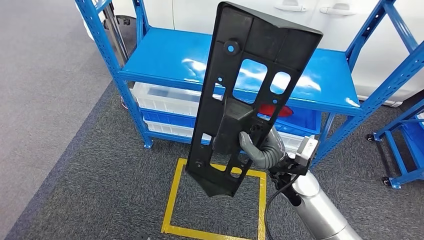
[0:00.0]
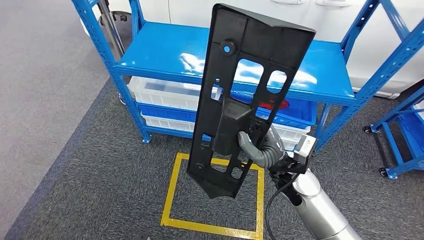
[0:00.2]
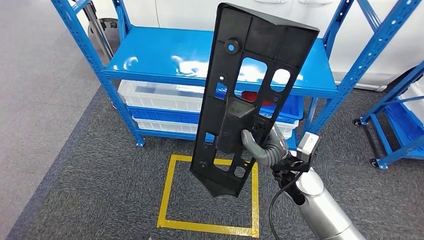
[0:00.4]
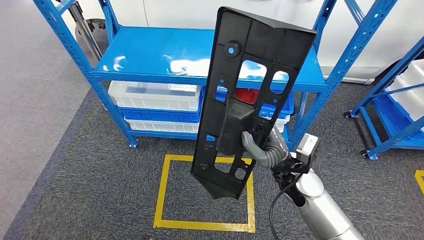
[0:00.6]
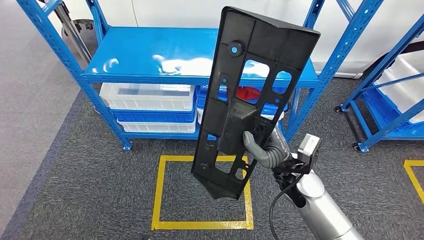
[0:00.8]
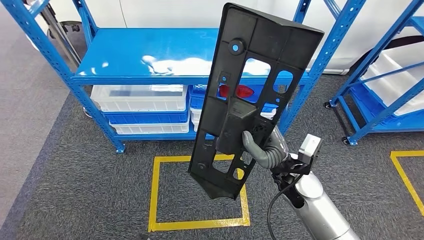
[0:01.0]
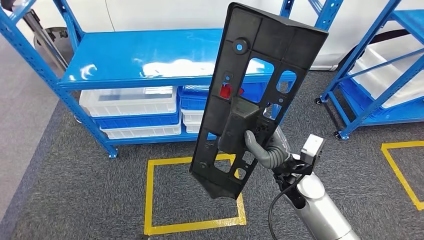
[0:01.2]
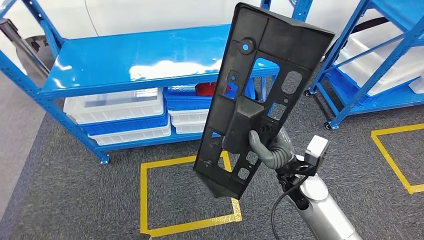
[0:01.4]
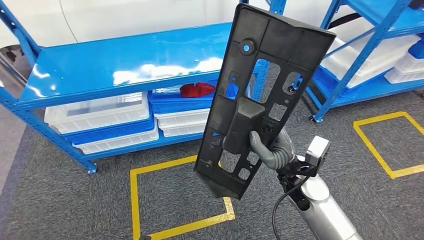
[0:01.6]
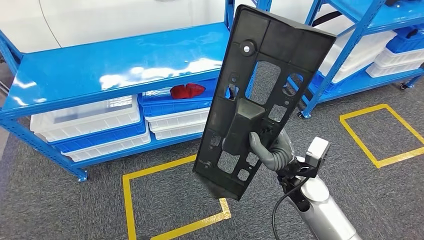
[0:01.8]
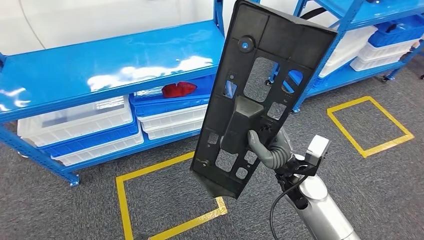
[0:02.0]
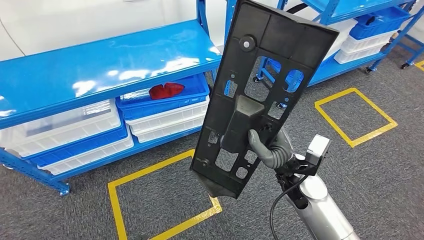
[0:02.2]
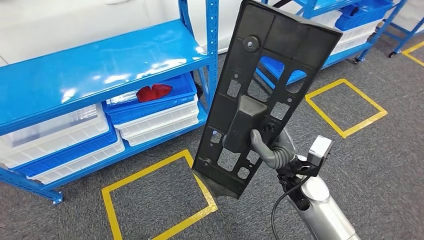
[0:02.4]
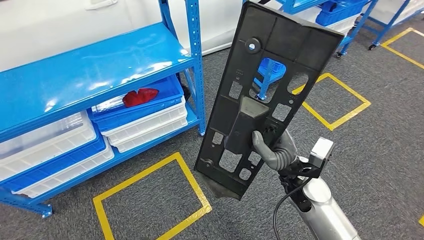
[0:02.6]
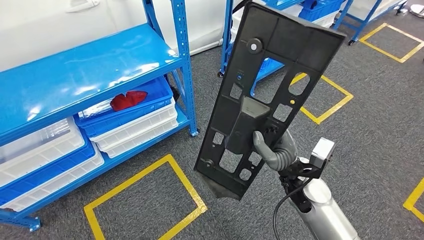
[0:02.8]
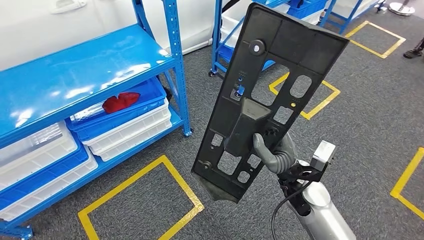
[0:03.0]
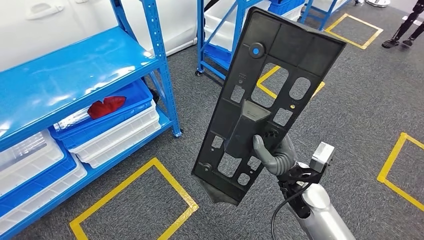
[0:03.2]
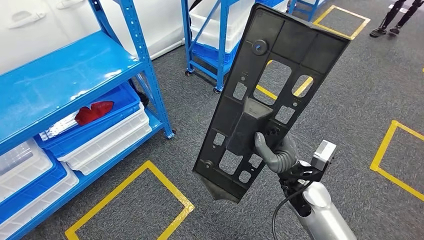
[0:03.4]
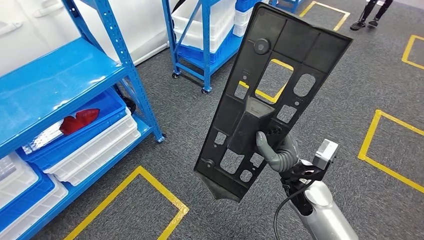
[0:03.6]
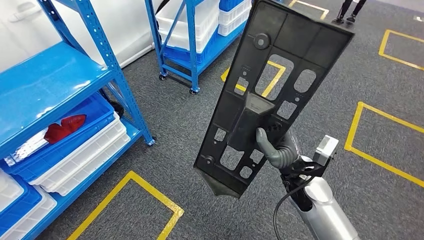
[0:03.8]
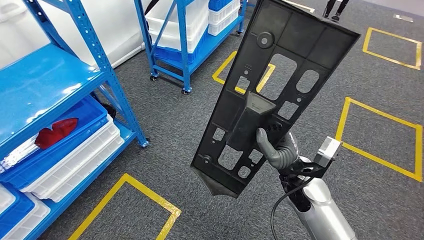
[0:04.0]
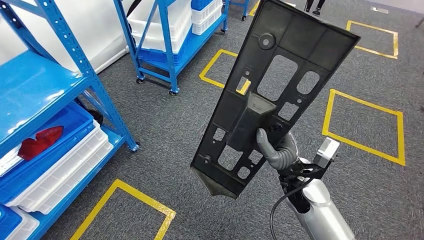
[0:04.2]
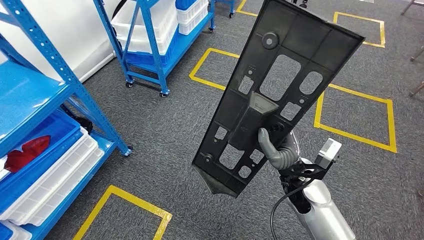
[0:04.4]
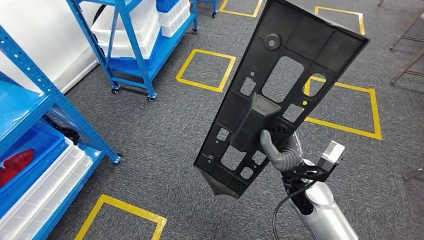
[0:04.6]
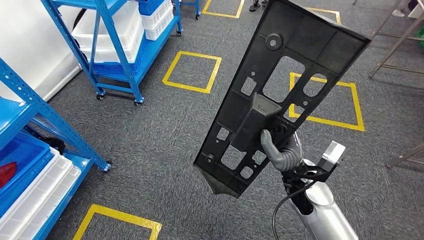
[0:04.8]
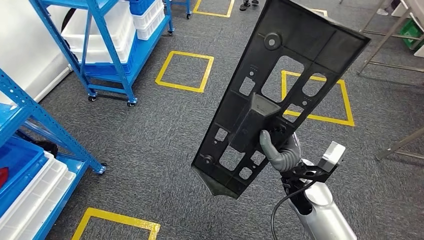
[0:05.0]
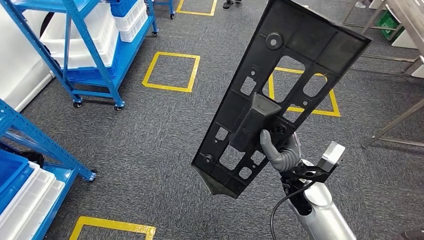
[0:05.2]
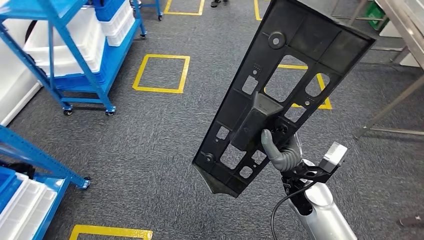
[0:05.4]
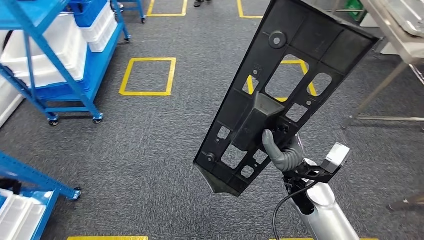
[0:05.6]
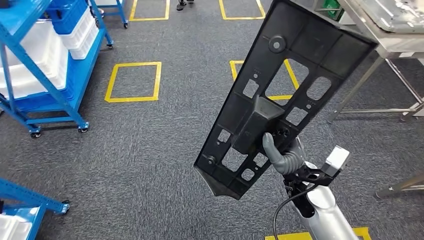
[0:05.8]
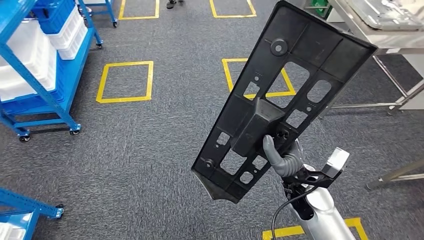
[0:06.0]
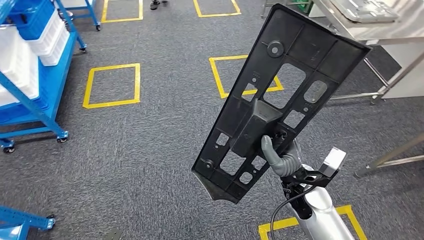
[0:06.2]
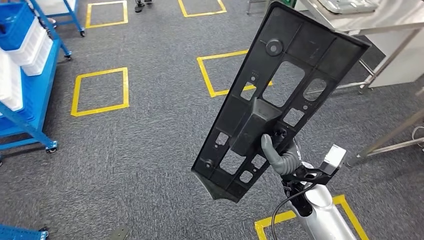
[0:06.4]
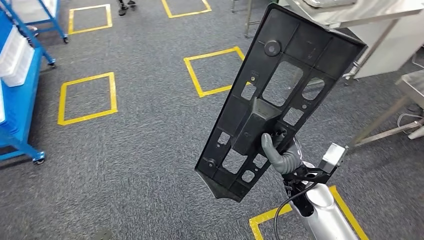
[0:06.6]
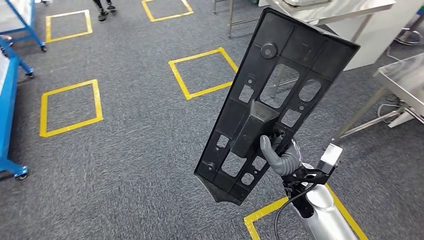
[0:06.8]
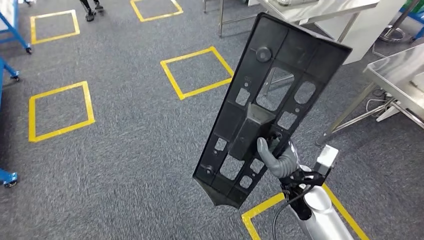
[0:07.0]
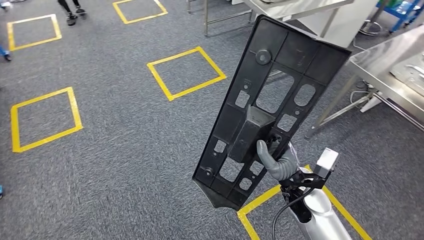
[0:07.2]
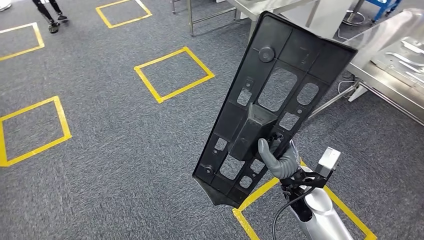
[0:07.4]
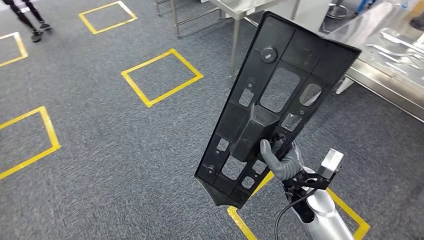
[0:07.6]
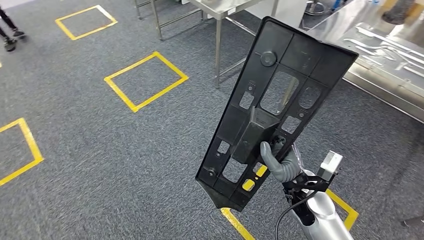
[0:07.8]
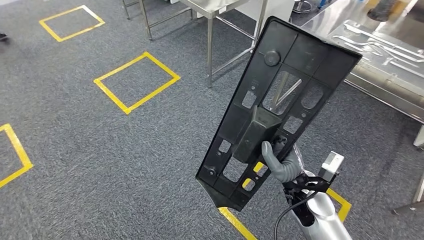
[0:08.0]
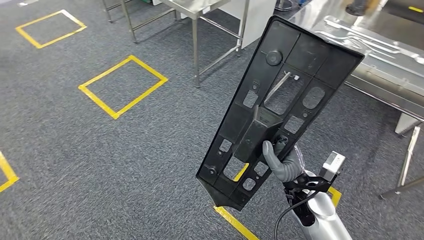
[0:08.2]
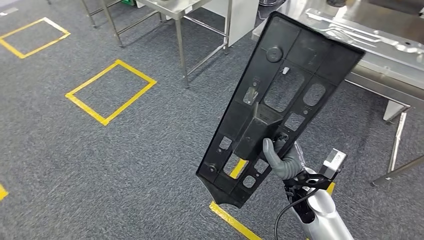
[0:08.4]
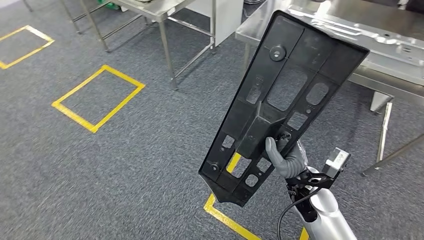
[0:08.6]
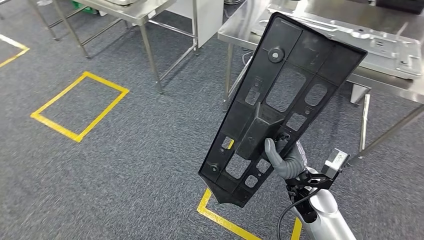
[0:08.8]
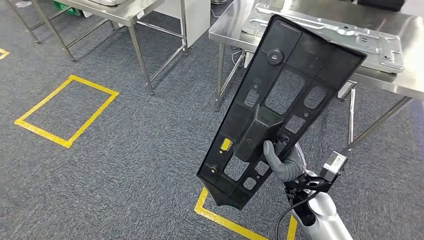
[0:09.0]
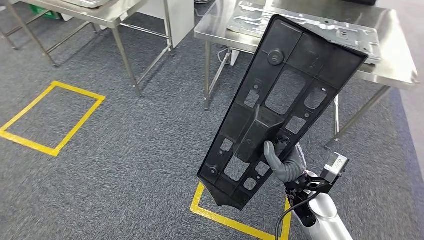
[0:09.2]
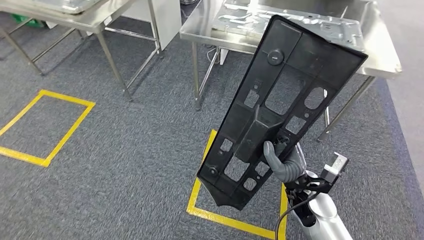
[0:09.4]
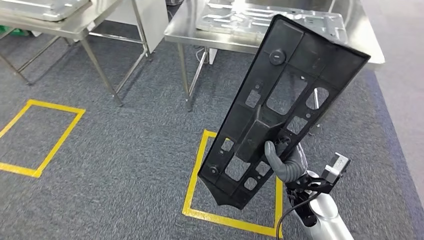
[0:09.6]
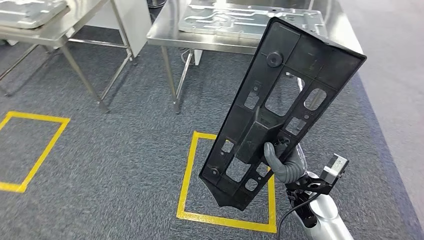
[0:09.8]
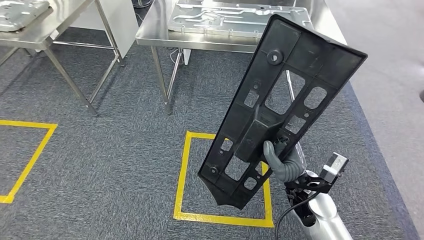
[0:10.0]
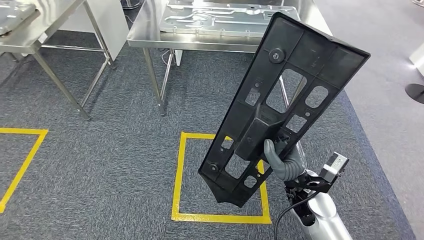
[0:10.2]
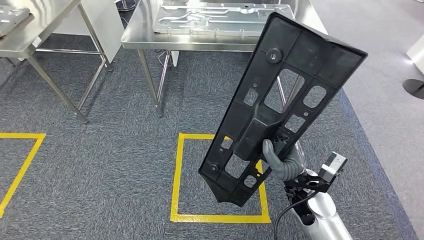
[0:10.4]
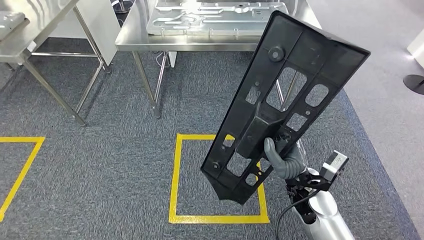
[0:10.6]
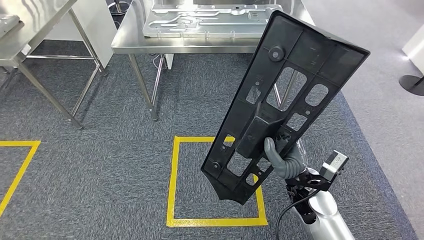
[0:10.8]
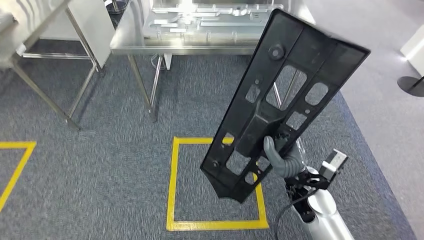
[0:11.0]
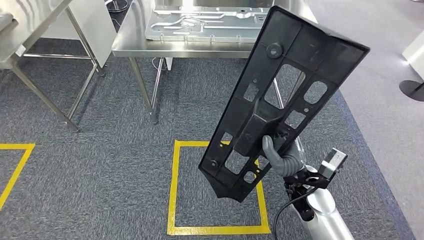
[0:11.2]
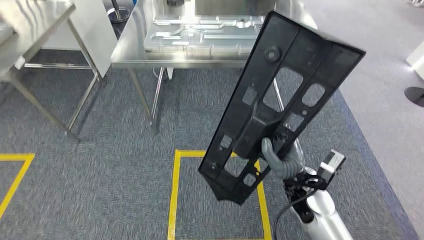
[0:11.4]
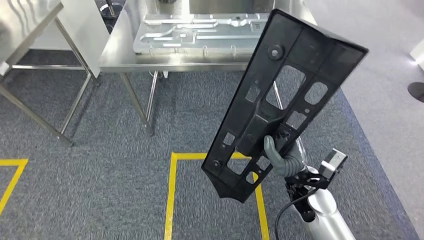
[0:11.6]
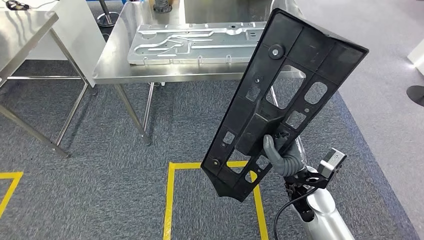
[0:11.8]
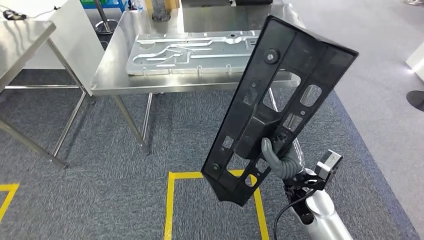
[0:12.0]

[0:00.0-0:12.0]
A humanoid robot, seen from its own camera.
Step, 0:01.0 to 0:11.8: Move the large material to the workbench.

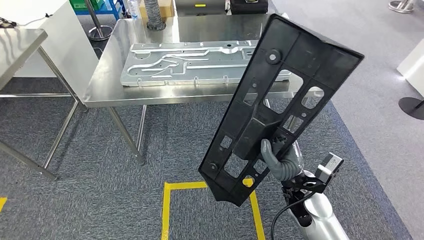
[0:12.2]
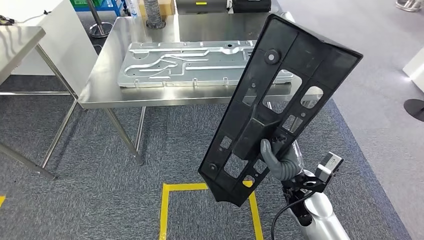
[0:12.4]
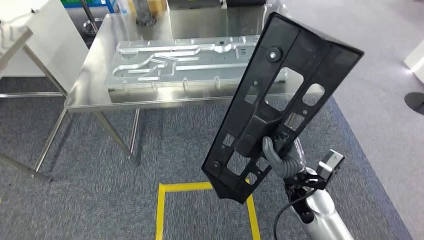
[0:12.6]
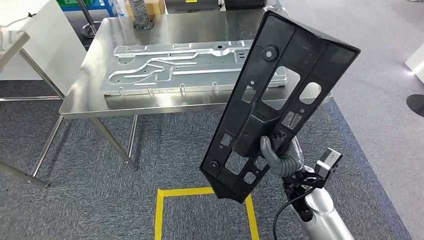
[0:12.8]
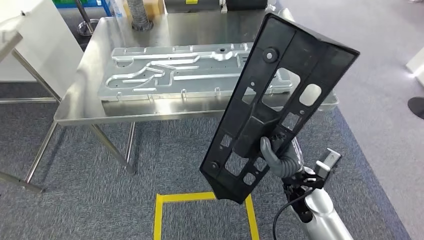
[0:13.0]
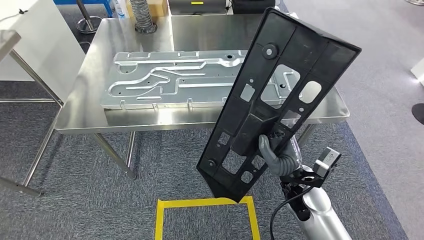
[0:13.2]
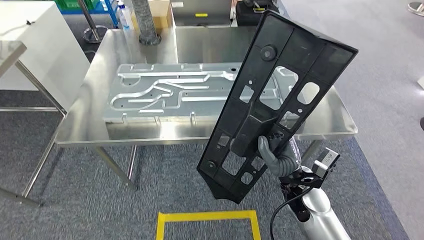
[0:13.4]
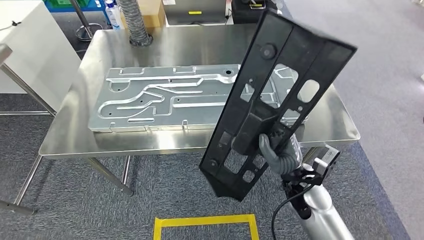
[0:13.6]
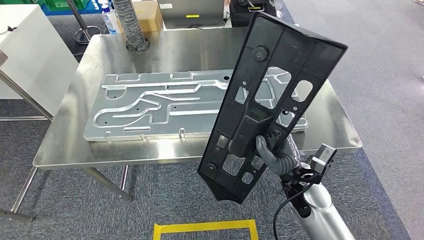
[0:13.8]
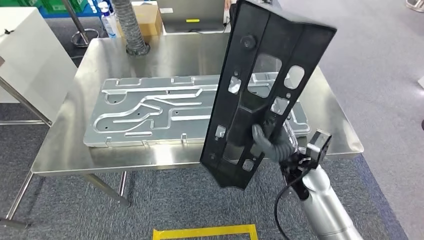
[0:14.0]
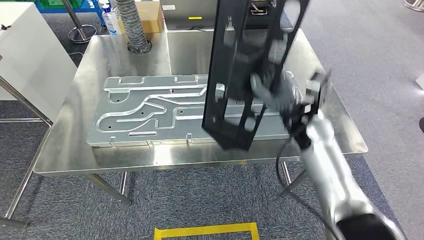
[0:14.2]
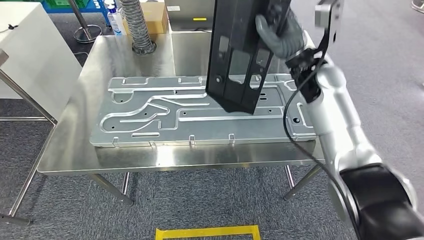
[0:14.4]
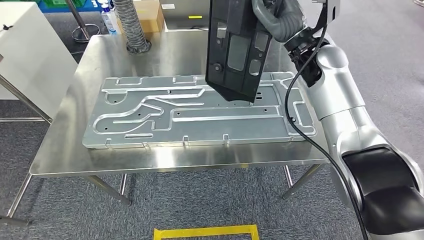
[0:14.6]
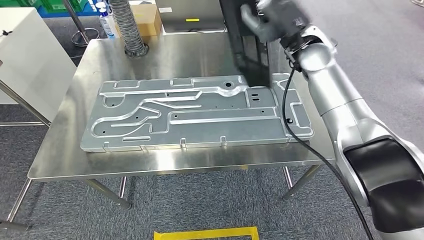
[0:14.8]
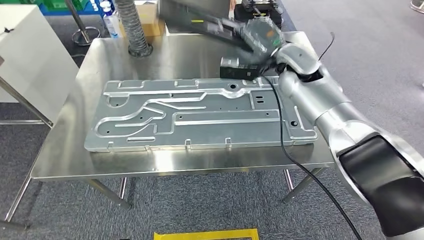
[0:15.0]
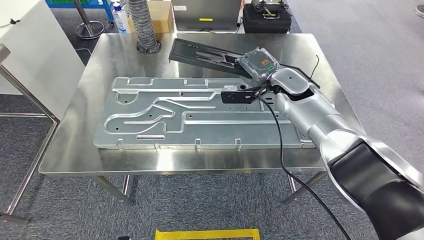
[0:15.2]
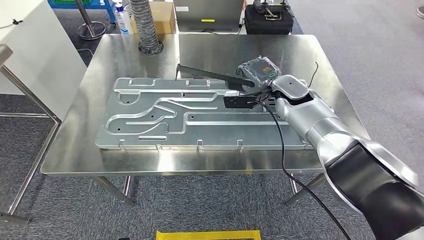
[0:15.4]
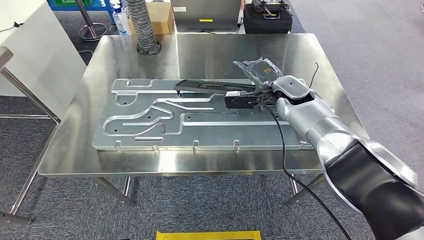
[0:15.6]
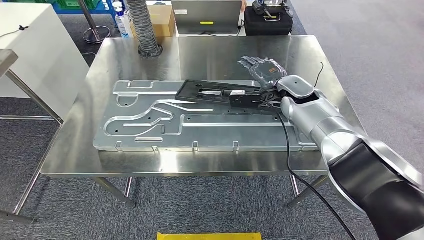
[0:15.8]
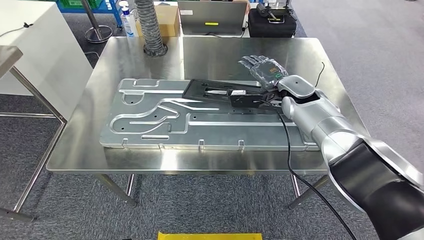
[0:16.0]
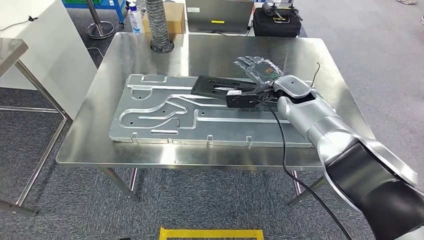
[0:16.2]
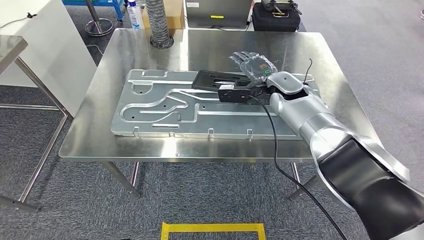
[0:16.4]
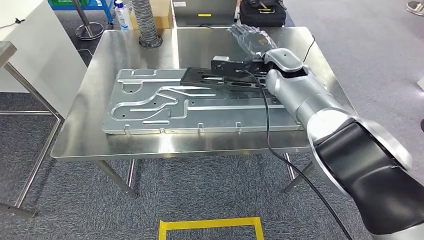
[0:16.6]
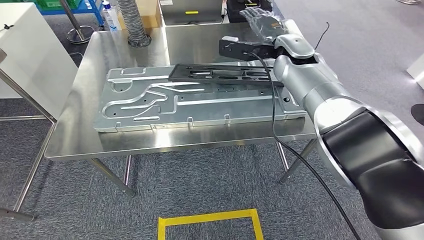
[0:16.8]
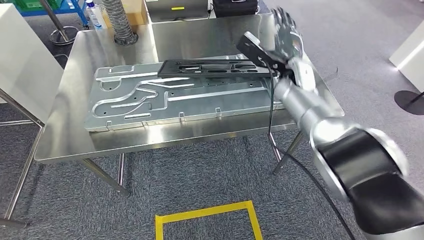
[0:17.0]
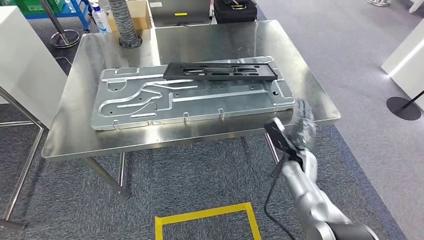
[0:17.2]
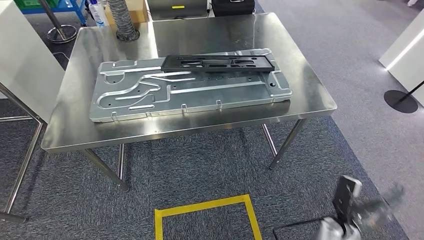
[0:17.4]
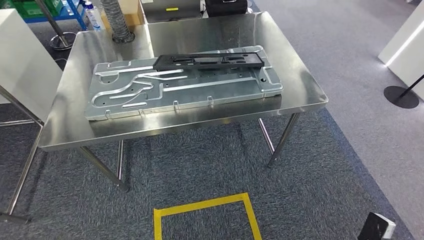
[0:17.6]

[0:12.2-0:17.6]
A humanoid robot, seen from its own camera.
Step, 0:13.0 to 0:16.0: Insert the large material into the corresponding slot on the workbench.
